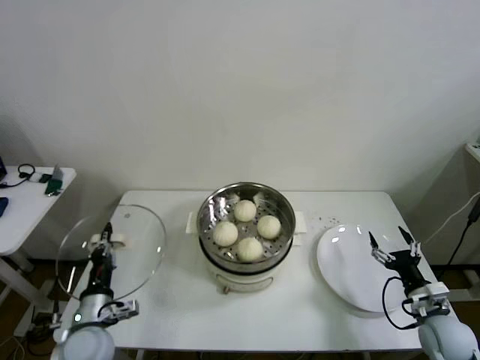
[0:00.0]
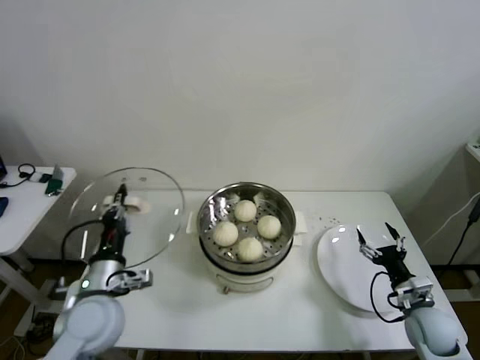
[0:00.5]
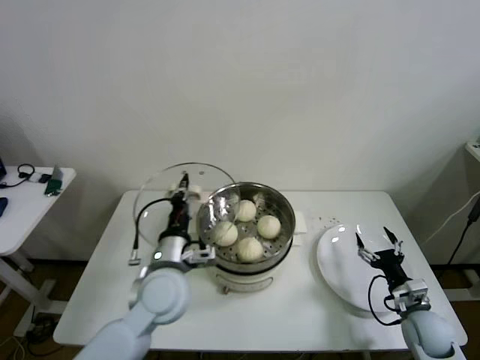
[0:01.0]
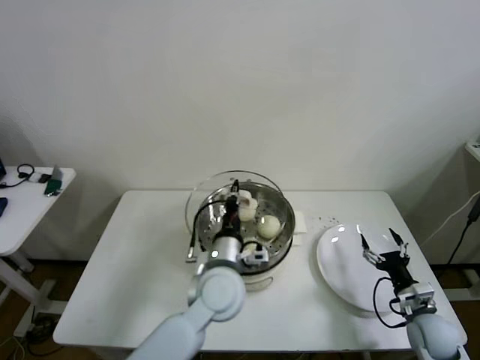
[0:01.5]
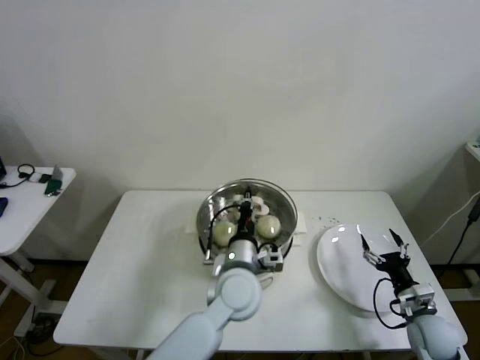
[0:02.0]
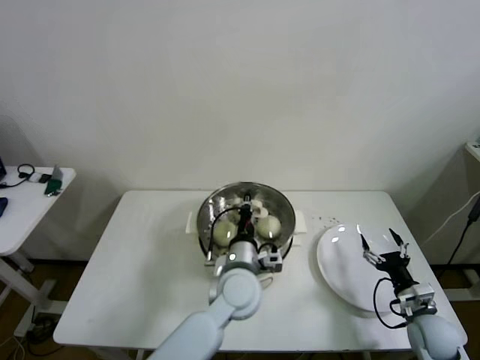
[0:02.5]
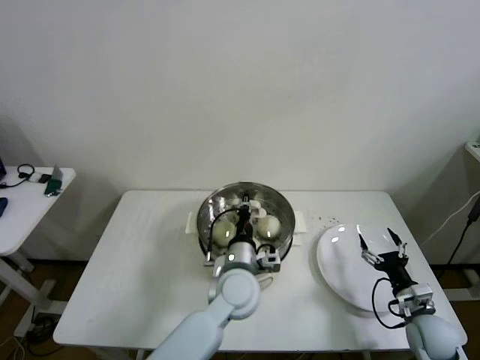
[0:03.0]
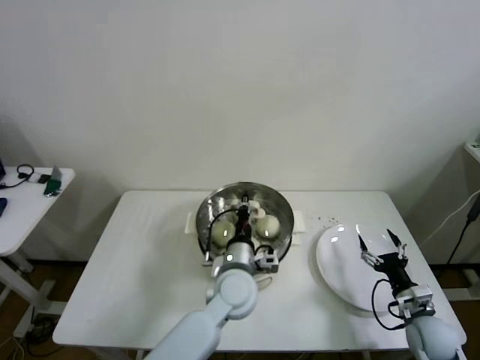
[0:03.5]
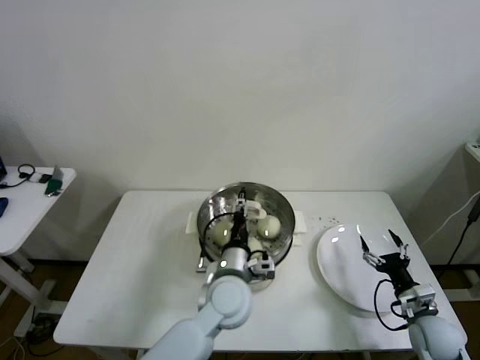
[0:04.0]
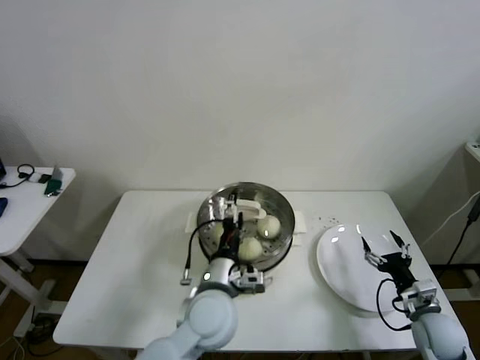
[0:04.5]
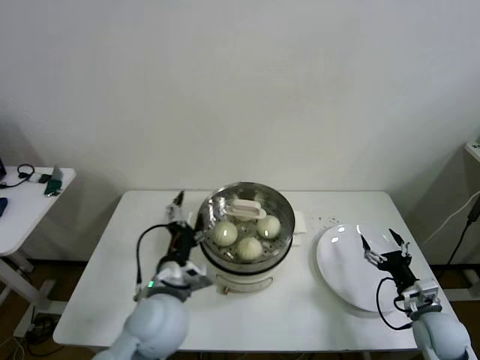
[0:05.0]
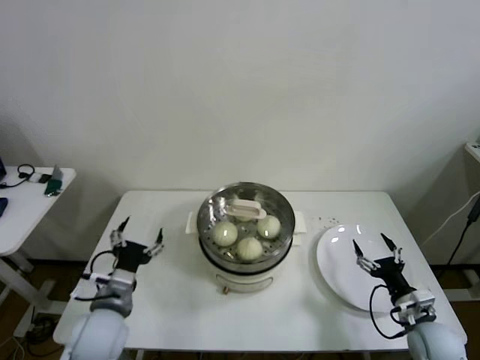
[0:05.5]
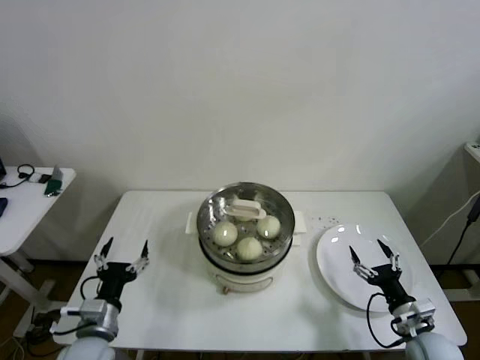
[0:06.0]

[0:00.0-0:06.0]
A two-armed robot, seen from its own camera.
Step, 0:00.0 to 0:03.5: Place the pot lid on the steamer with left gripper.
0:00.0 to 0:02.0: The left gripper shifts some 30 cm to the right.
0:02.0 to 0:04.0: The left gripper opens.
0:04.0 to 0:06.0: The left gripper shifts approximately 25 cm to the left, and opens its fingers.

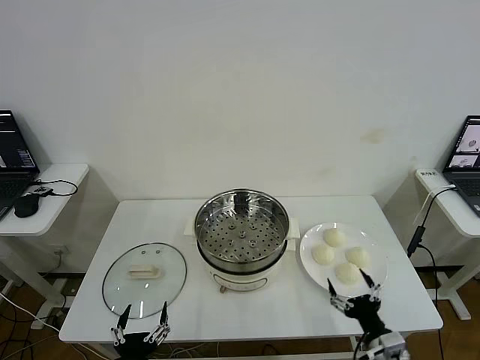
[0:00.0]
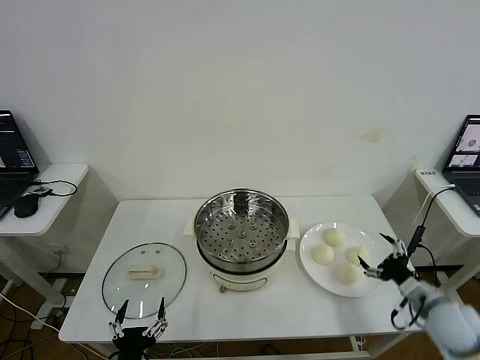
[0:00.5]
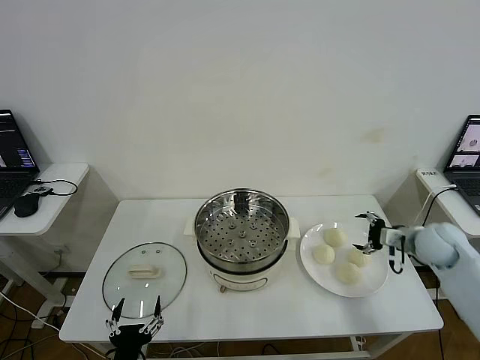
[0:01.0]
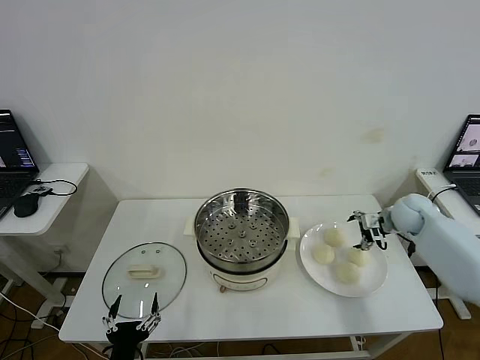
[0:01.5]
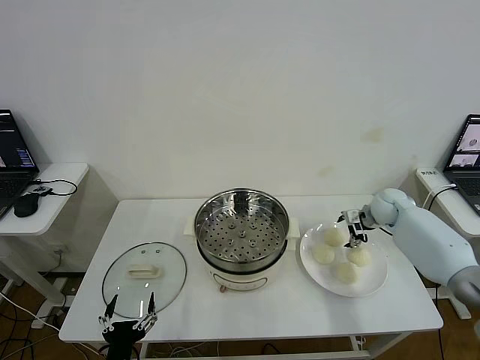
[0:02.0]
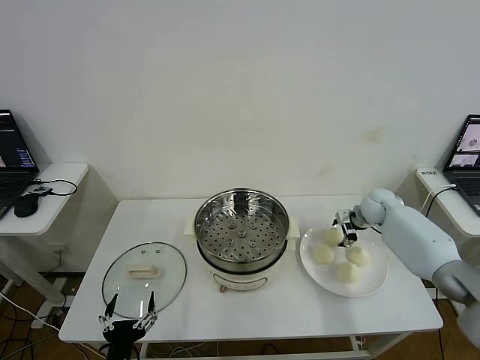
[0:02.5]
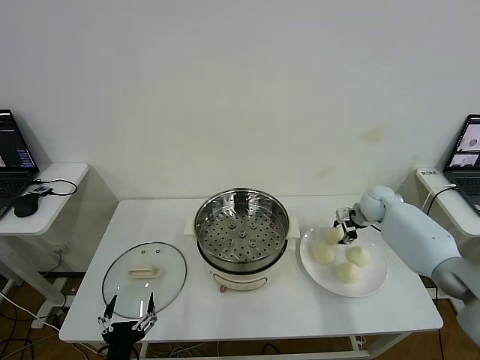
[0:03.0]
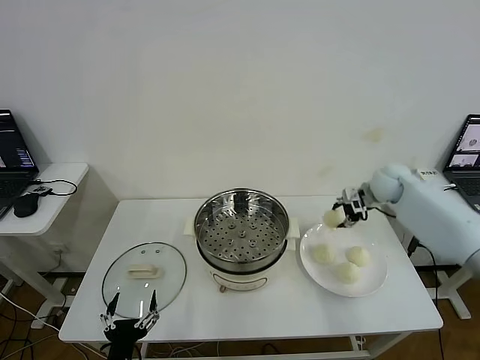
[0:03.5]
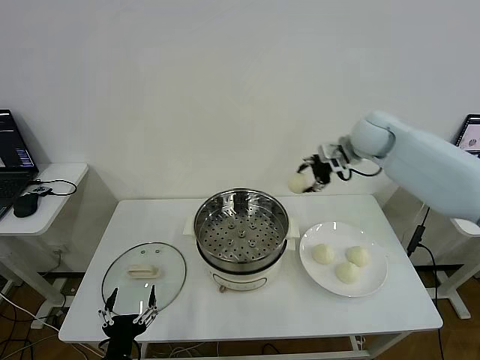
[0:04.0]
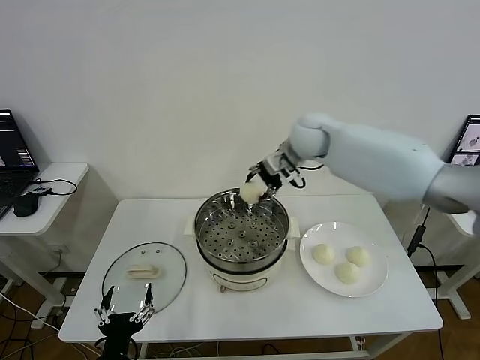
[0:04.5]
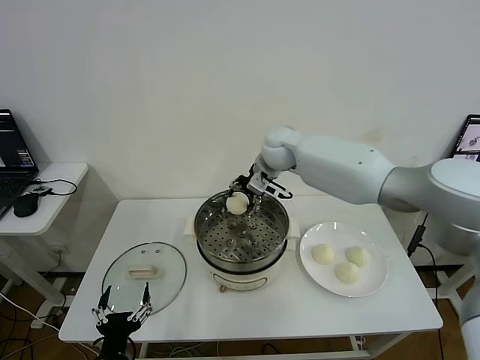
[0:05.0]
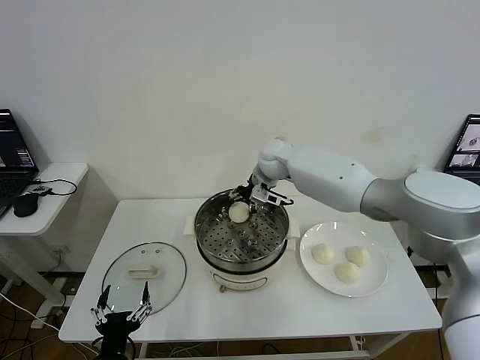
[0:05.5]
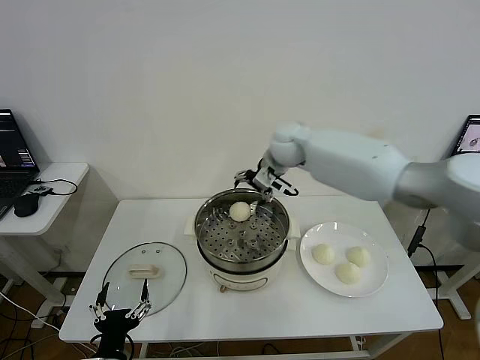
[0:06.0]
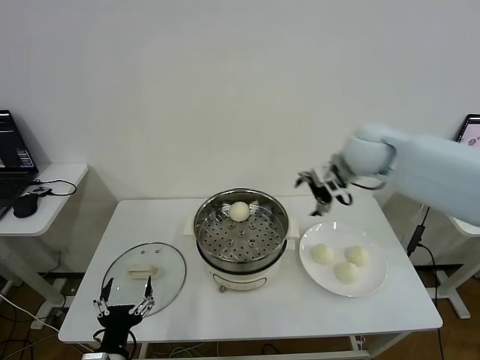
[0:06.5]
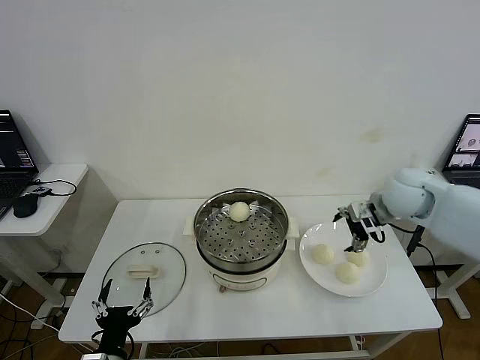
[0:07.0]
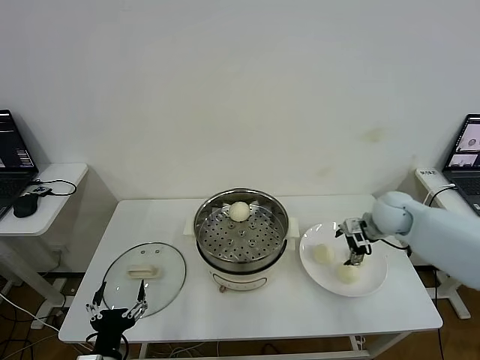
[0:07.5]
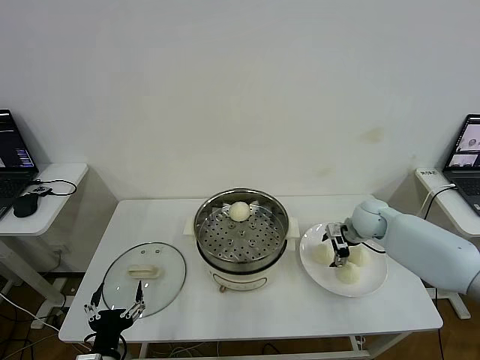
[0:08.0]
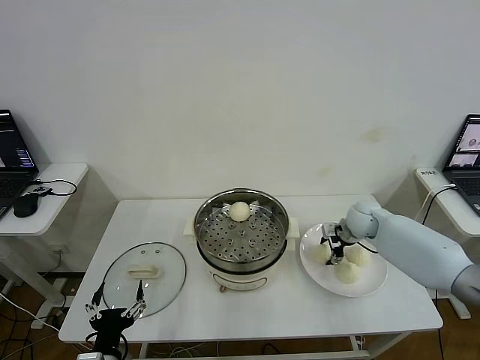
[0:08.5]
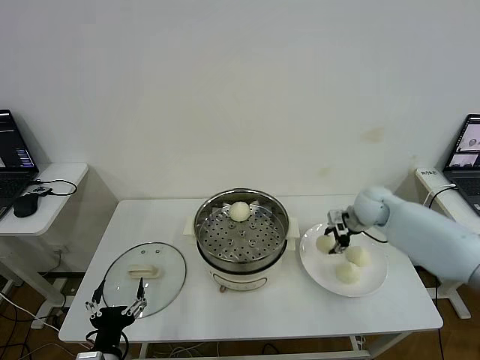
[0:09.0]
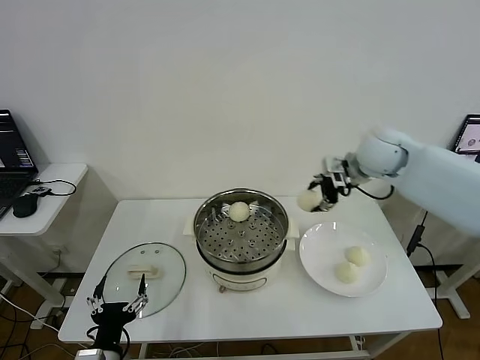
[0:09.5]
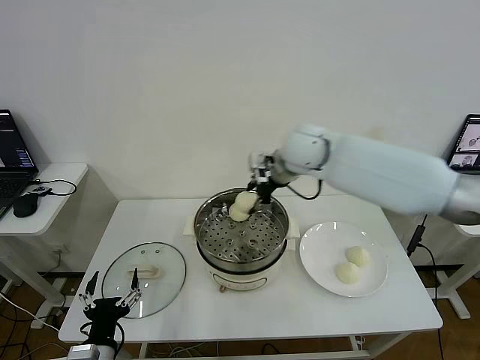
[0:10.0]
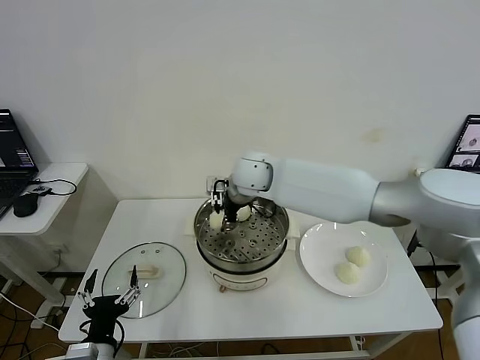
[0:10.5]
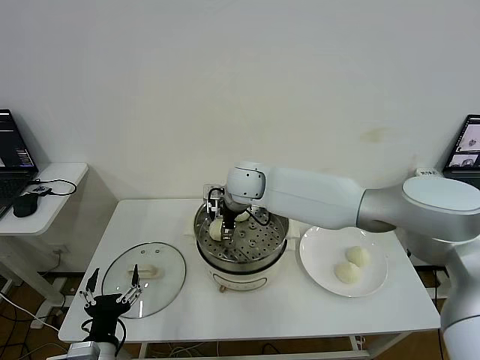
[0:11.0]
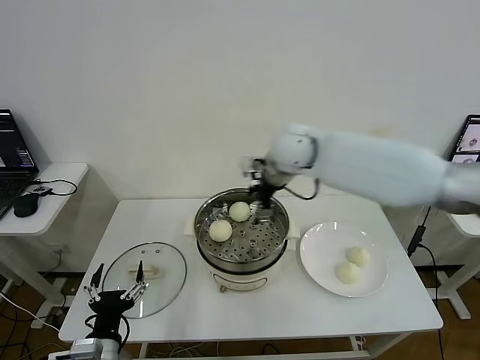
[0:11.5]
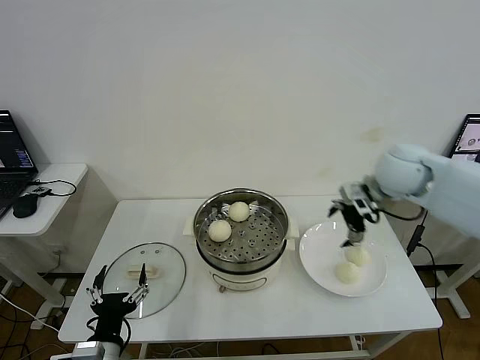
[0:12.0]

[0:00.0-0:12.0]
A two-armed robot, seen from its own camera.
Step, 0:00.0 to 0:02.5: Grasp the baozi in the plate with right gripper.
Step, 0:03.0 to 0:05.5: Place the baozi on the steamer with right gripper.
Step, 0:06.0 to 0:08.5: Grasp the baozi in the plate with right gripper.
Step, 0:09.0 to 0:11.0: Place the baozi on the steamer with right gripper.
0:02.0 to 0:04.0: The right gripper heads upward and to the left, covering some 25 cm, and closes up.
0:04.0 to 0:06.0: The right gripper heads to the left, covering some 10 cm, and opens.
0:06.0 to 0:08.0: The right gripper heads downward and to the right, covering about 30 cm.
0:08.0 to 0:10.0: The right gripper is displaced to the left and upward by about 30 cm, and closes up.
0:10.0 to 0:12.0: The right gripper shifts some 20 cm to the right, and opens.

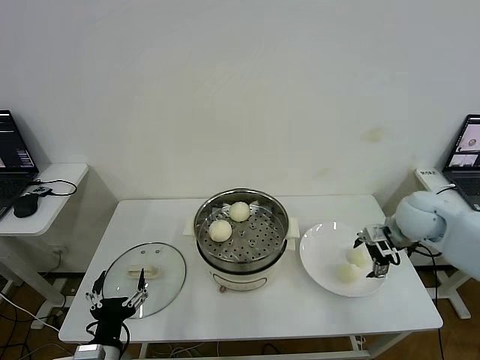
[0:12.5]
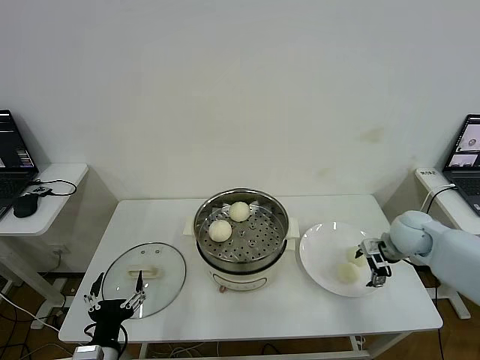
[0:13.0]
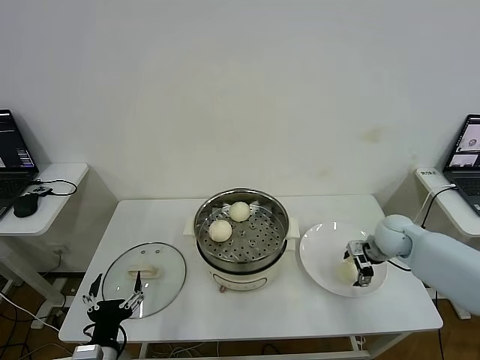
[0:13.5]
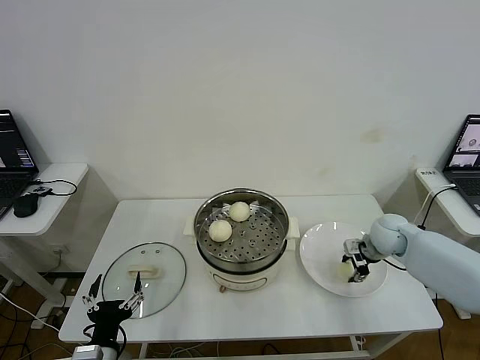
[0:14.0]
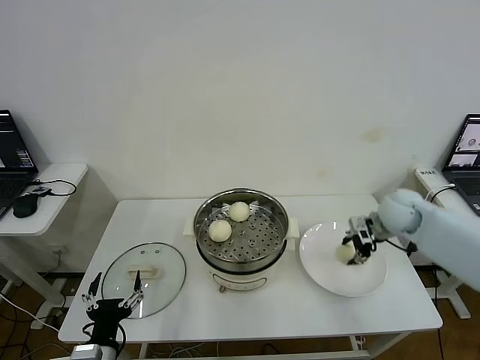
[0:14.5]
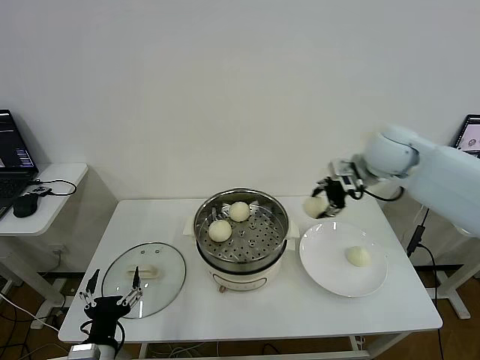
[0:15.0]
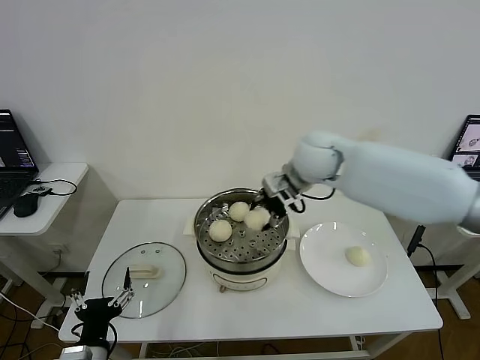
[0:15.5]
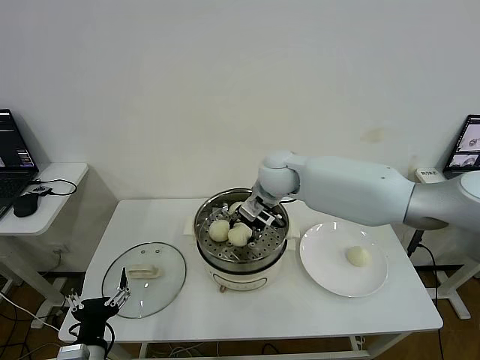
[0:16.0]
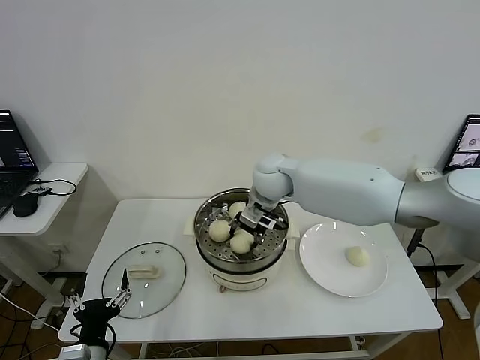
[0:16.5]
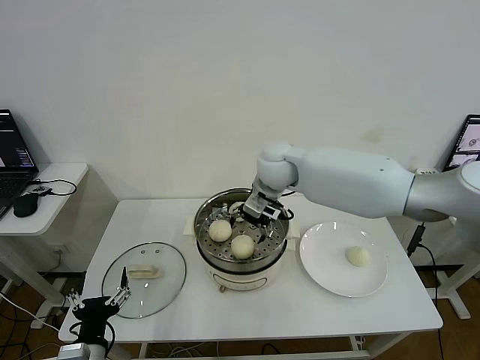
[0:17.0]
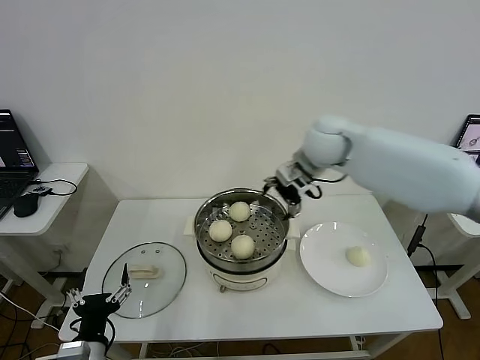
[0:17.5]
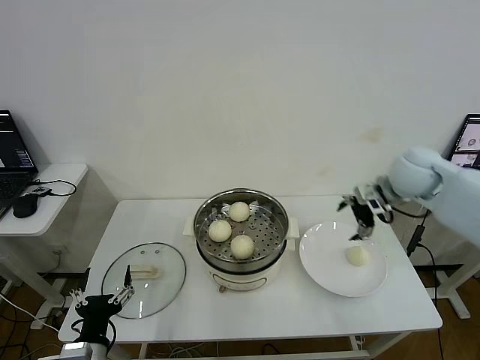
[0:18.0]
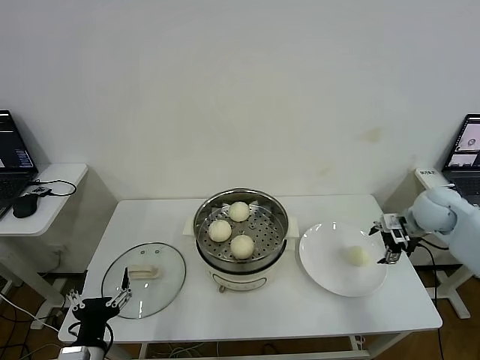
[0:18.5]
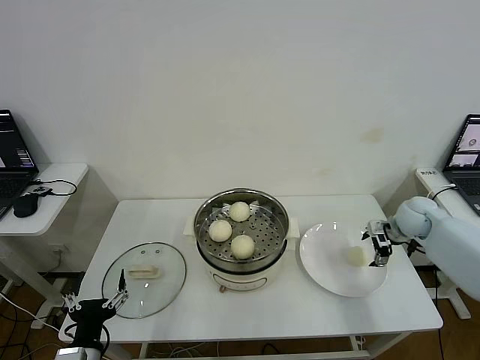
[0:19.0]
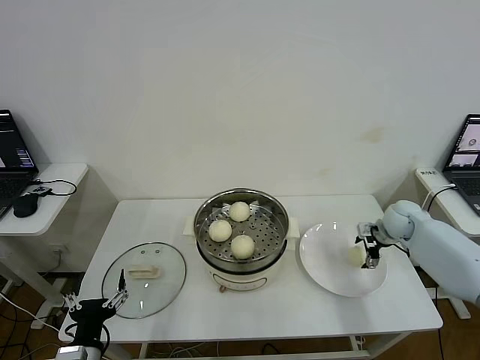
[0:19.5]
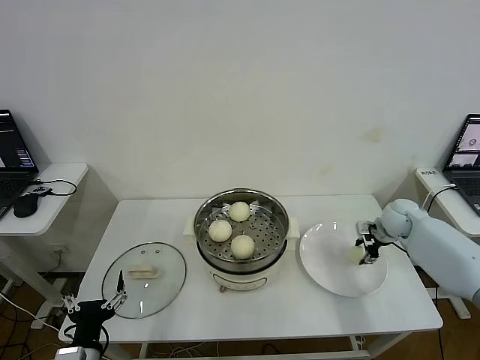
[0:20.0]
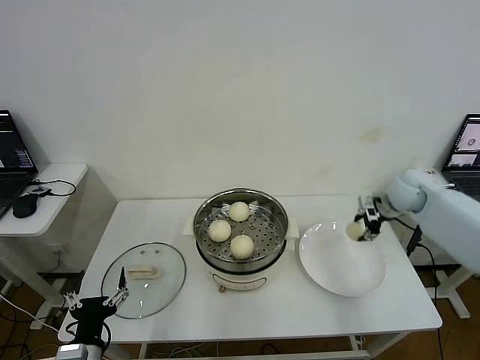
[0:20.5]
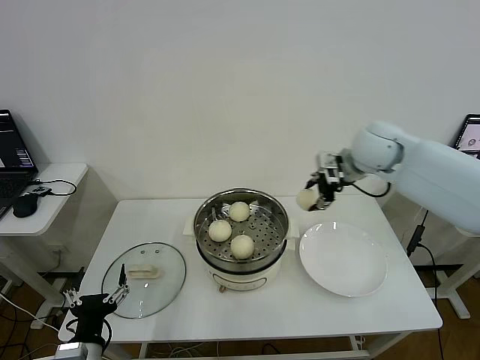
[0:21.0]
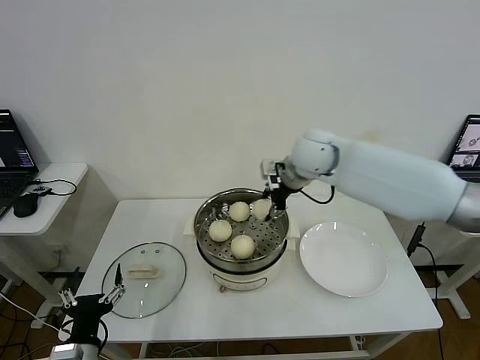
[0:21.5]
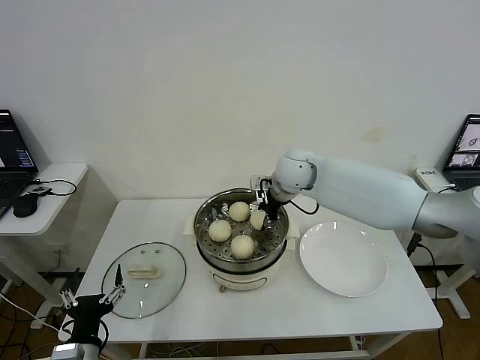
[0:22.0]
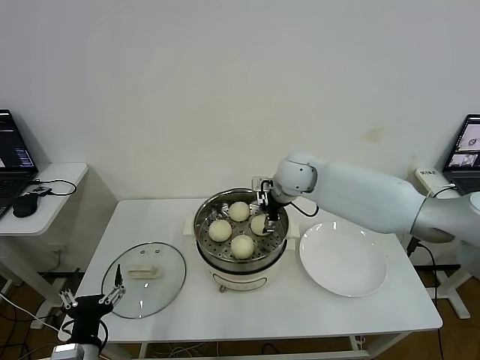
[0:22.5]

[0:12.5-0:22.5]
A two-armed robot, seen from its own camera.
Step, 0:12.5 to 0:14.0: Grasp the baozi in the plate with right gripper.
Step, 0:14.5 to 0:16.5: Place the baozi on the steamer with right gripper.
Step, 0:17.0 to 0:20.0: Grasp the baozi in the plate with right gripper.
0:12.5 to 0:14.5: The right gripper reaches roughly 10 cm downward, then returns, and closes up.
0:14.5 to 0:16.5: The right gripper travels to the left by some 30 cm.
0:16.5 to 0:18.5: The right gripper moves to the right, roughly 35 cm, and opens its fingers.
0:18.5 to 0:20.5: The right gripper travels forward by about 5 cm, moves roughly 10 cm downward and comes back, and closes up.
0:20.5 to 0:22.5: The right gripper goes approximately 25 cm to the left, and opens.
